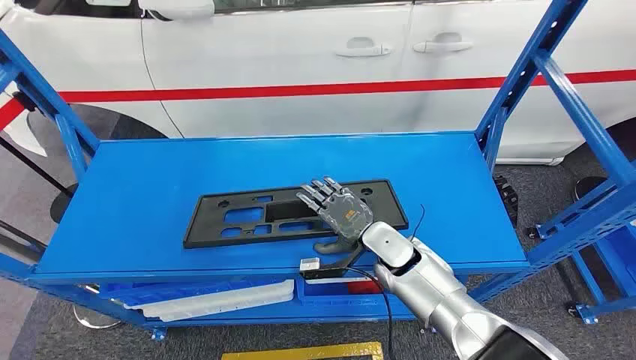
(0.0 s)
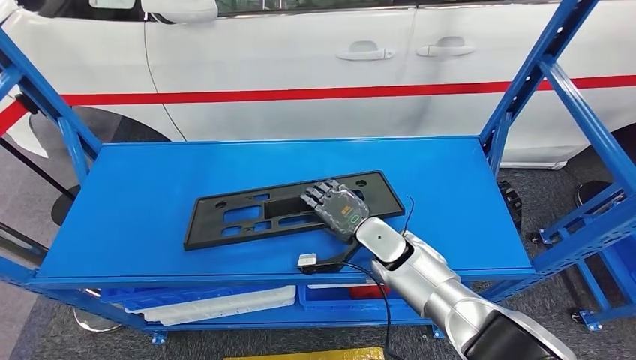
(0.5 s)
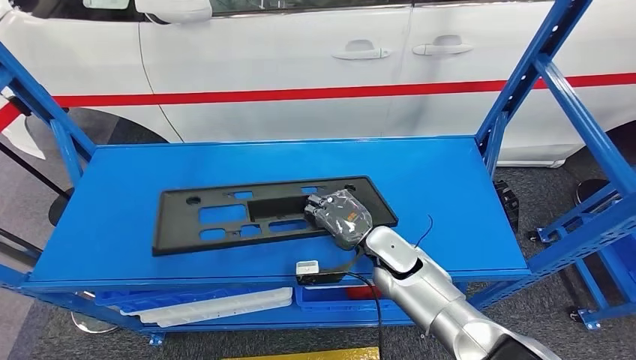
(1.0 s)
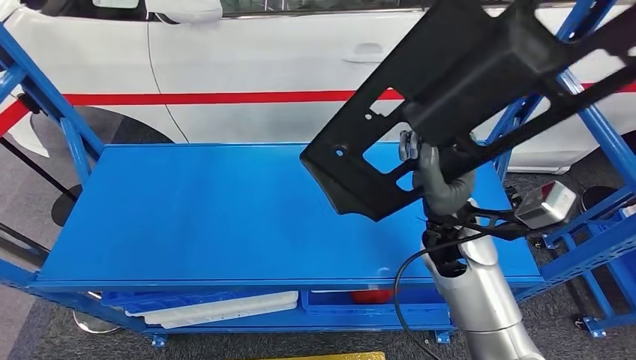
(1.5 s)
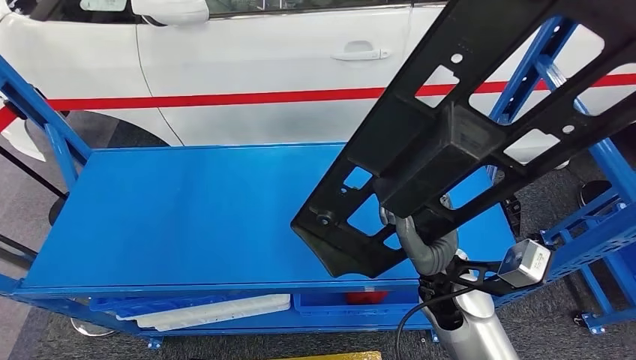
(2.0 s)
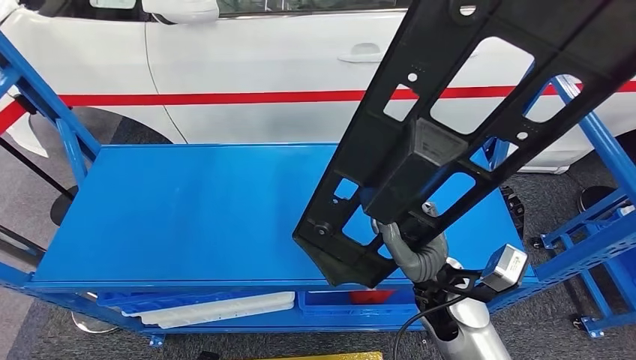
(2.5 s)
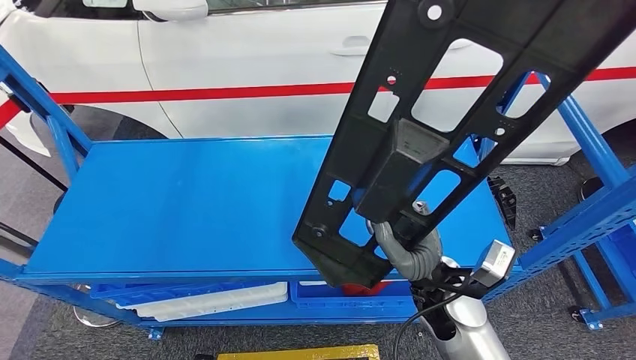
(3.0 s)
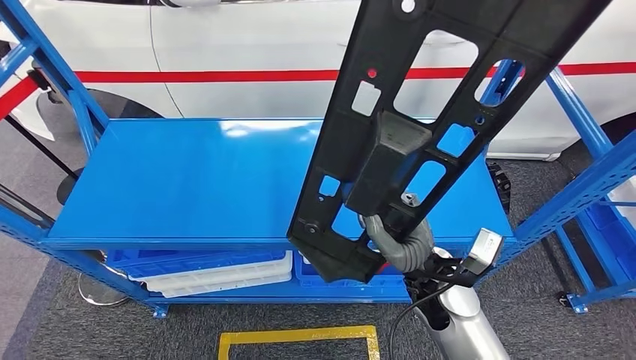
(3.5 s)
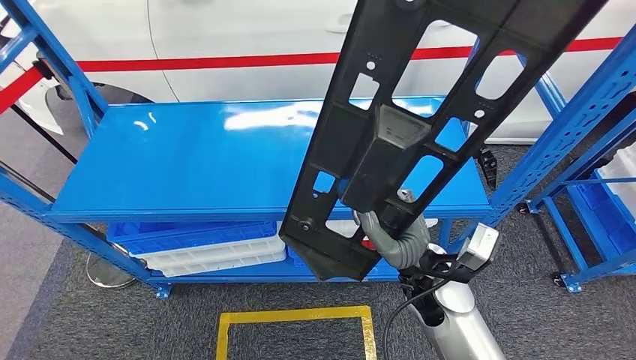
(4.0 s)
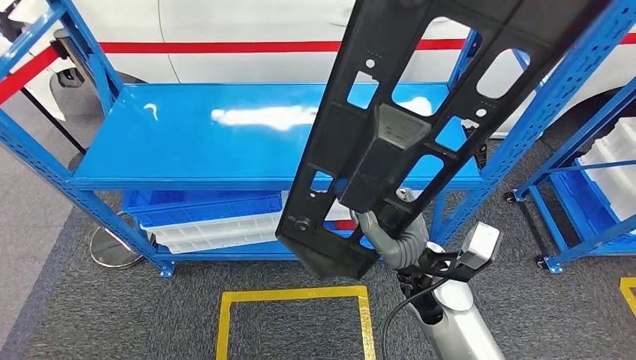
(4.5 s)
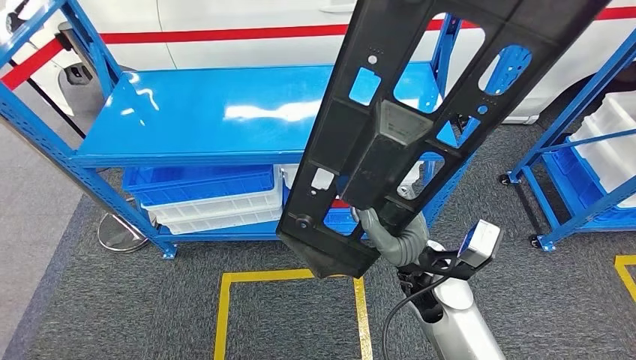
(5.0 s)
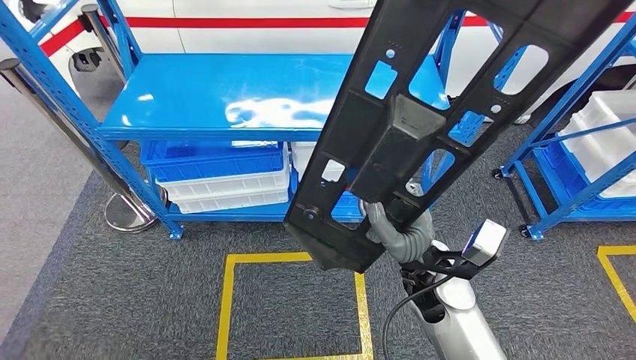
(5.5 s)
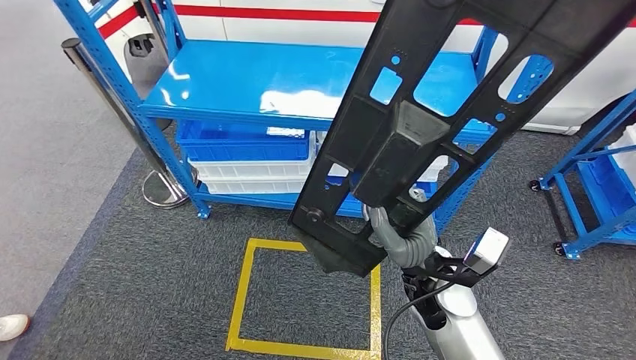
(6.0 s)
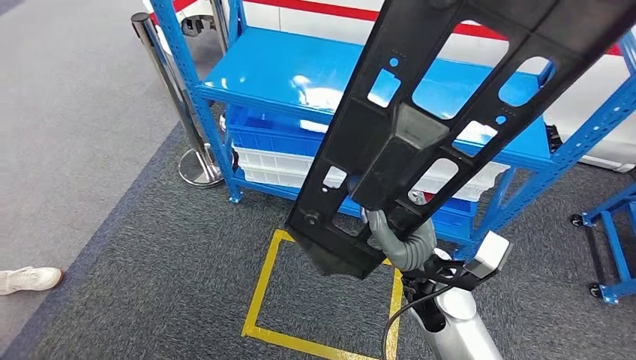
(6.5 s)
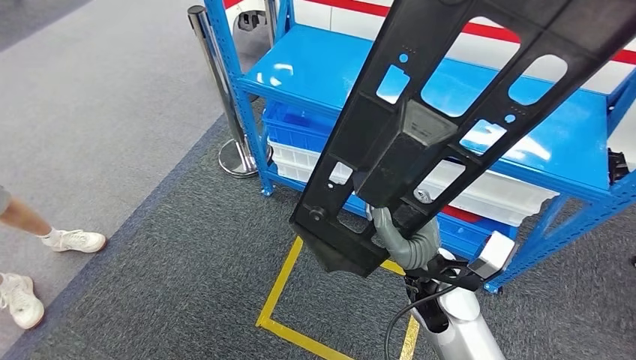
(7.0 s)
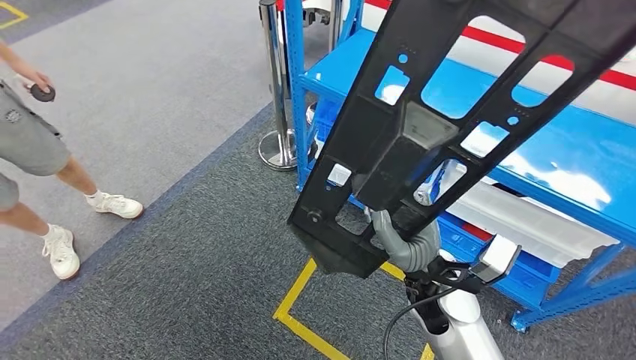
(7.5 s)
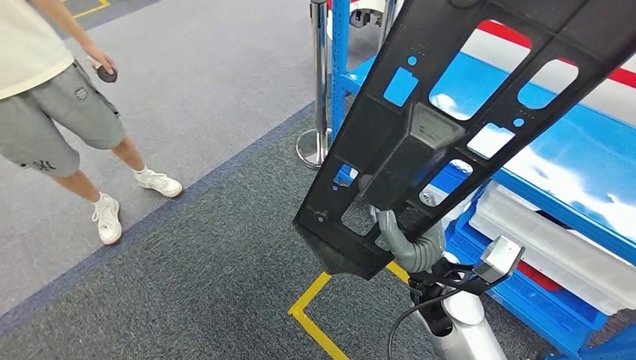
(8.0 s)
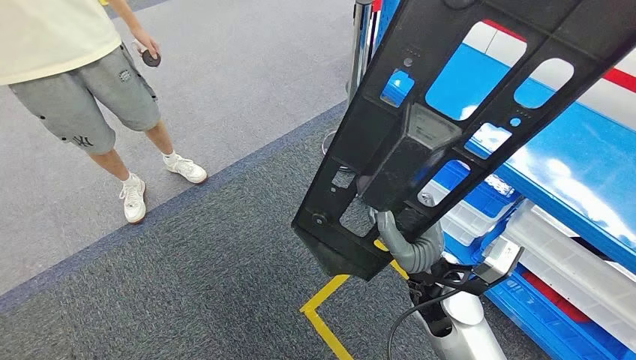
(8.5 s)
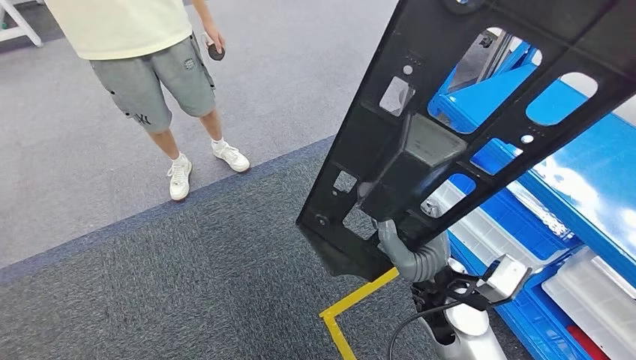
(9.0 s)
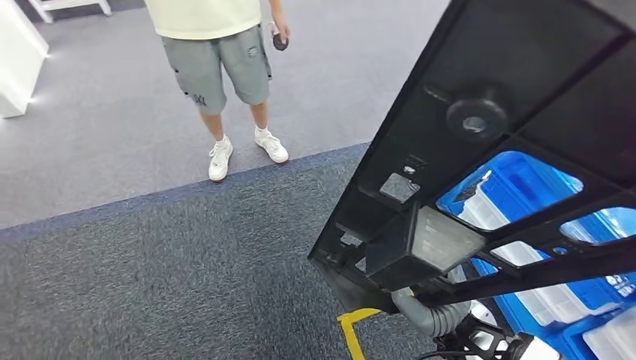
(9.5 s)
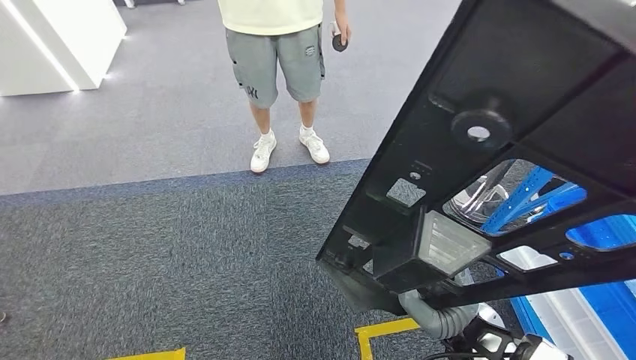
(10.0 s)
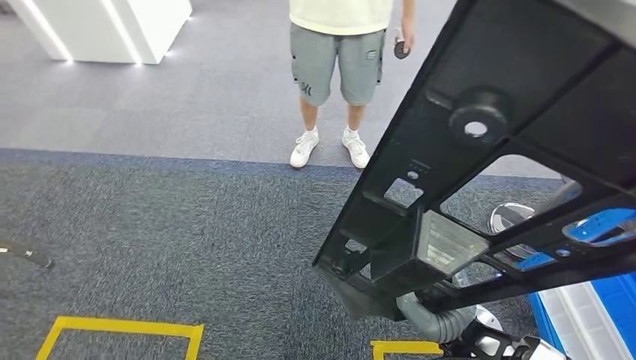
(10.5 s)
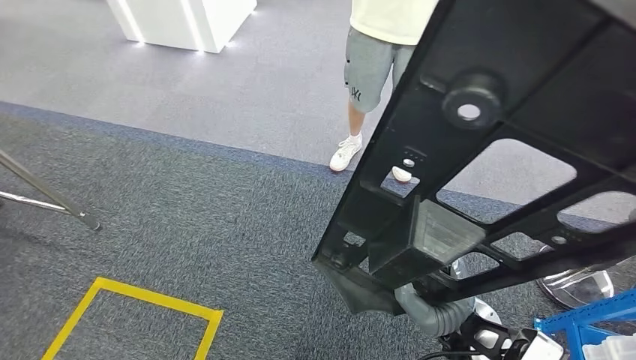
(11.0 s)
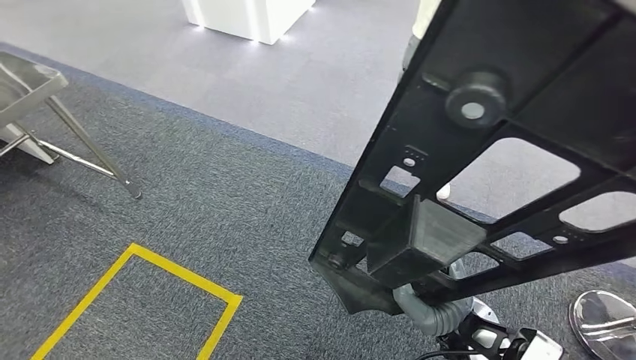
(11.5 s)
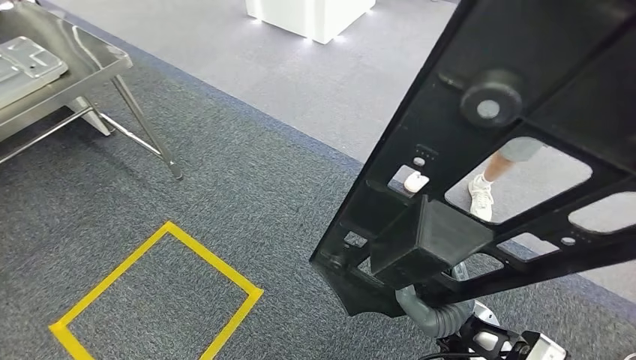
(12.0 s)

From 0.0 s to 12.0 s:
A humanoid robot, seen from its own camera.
Step, from 0.0 s to 2.0 s: Pick up the large material from the shelf.

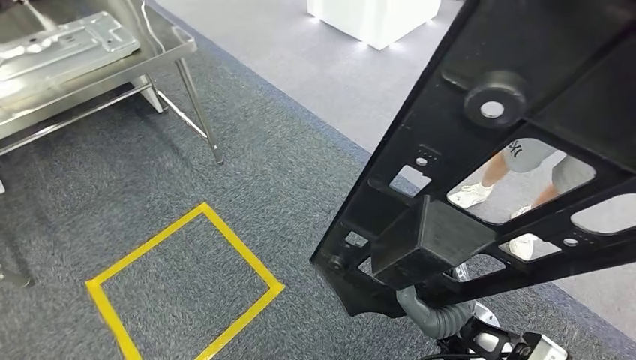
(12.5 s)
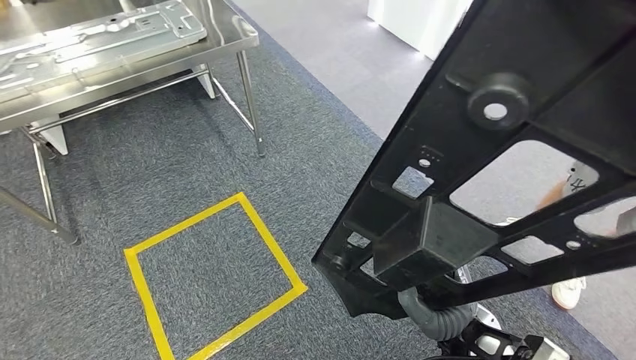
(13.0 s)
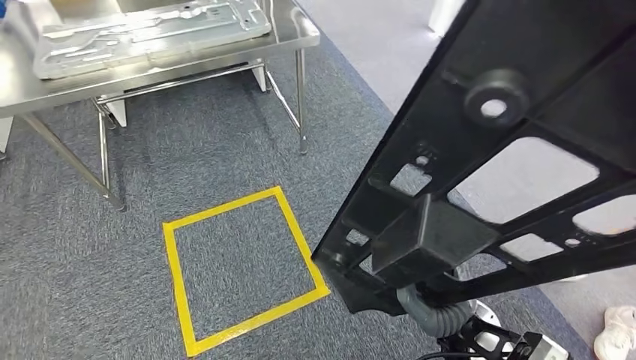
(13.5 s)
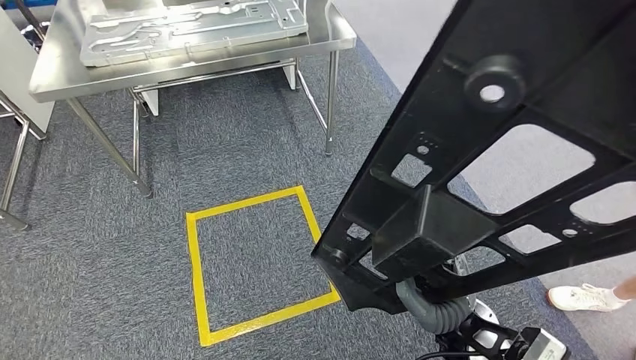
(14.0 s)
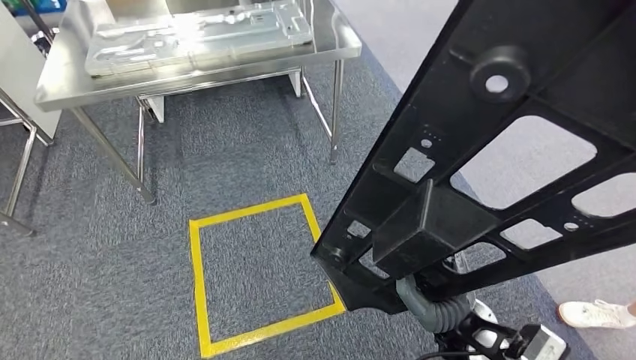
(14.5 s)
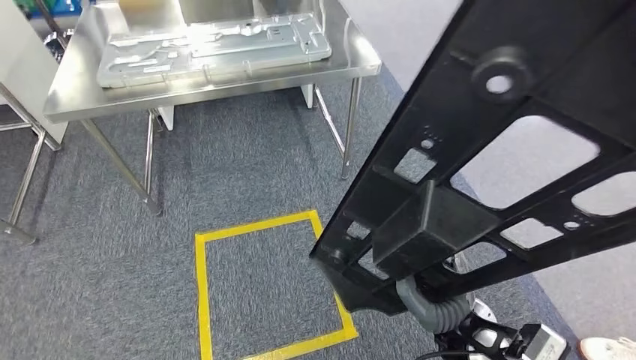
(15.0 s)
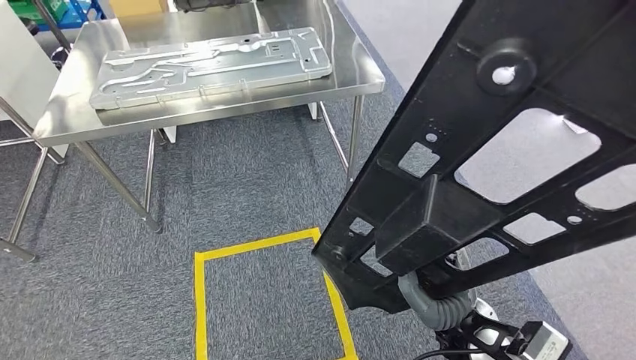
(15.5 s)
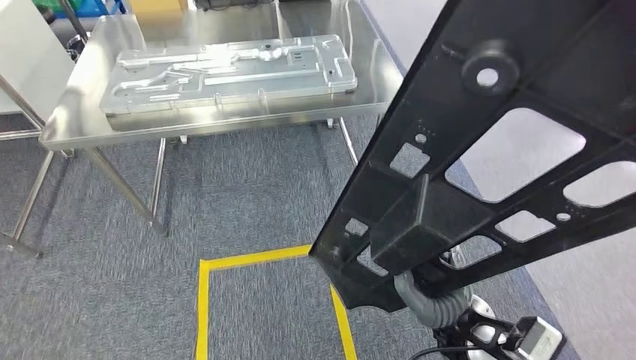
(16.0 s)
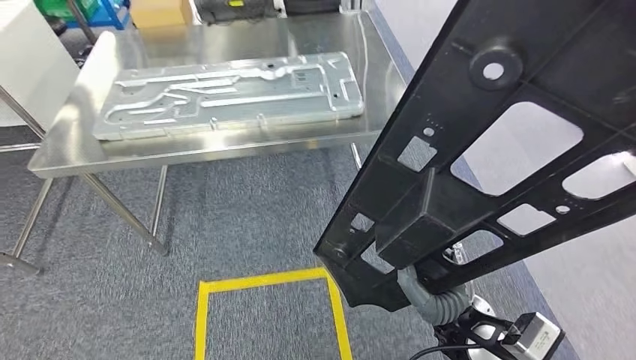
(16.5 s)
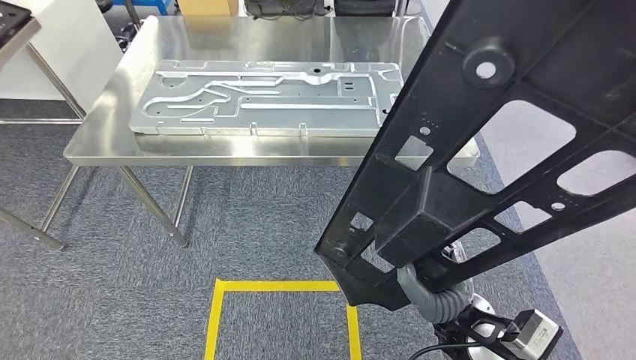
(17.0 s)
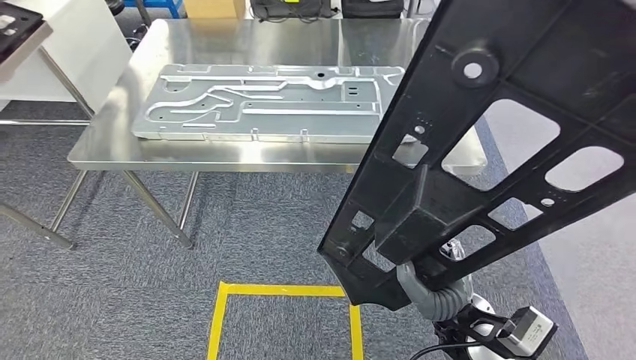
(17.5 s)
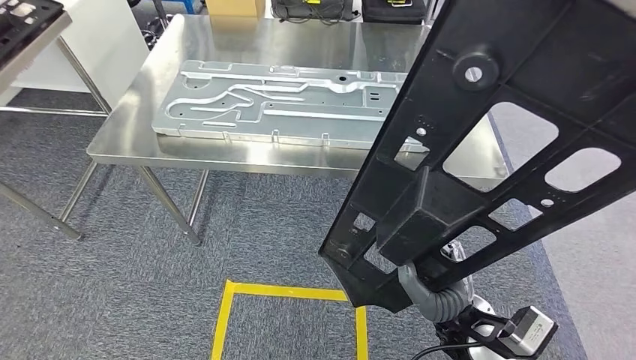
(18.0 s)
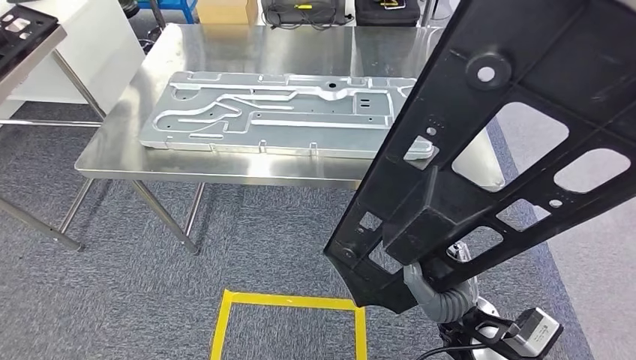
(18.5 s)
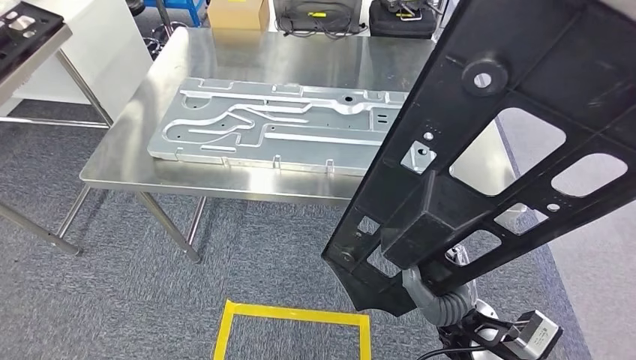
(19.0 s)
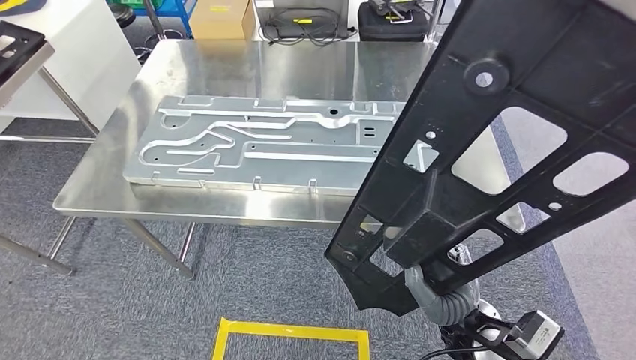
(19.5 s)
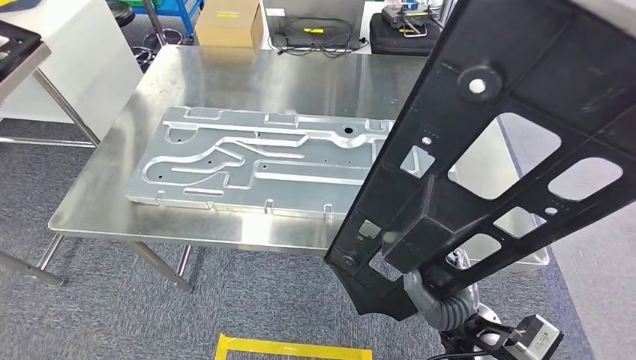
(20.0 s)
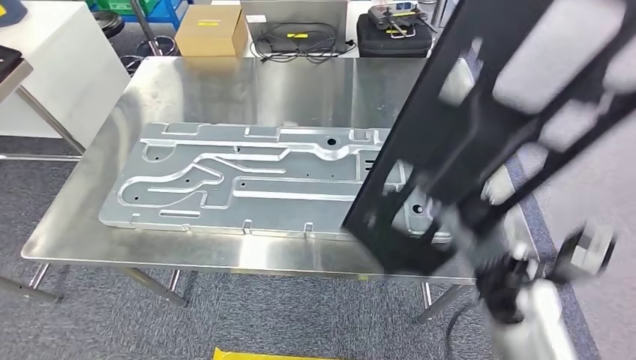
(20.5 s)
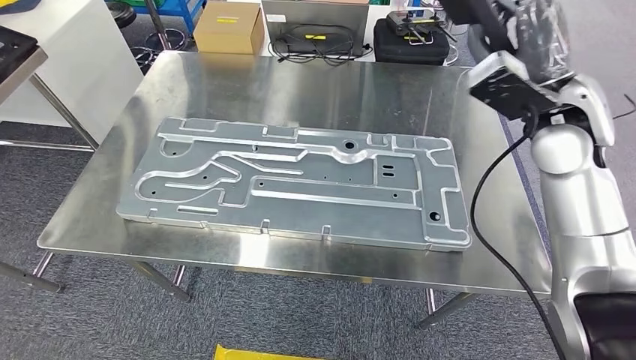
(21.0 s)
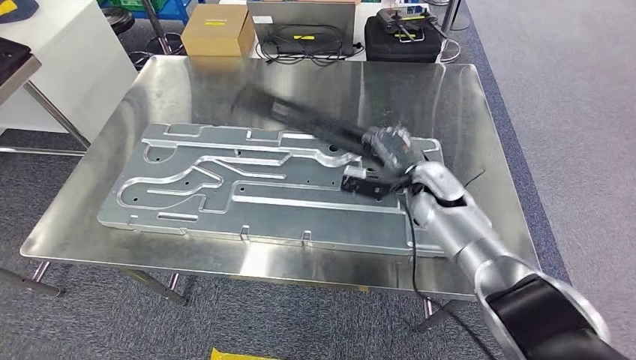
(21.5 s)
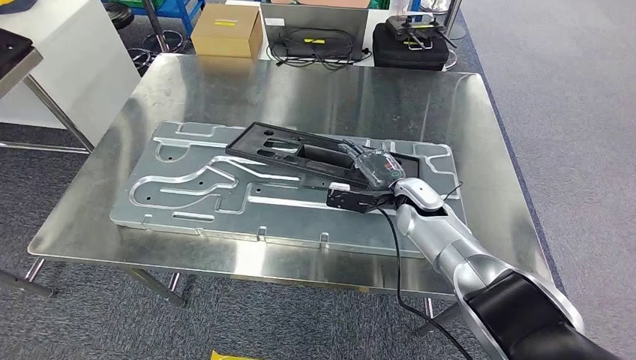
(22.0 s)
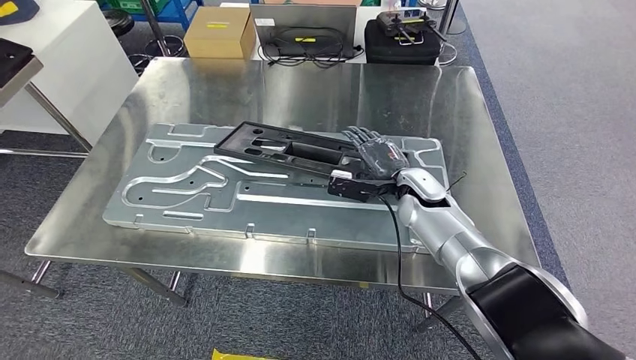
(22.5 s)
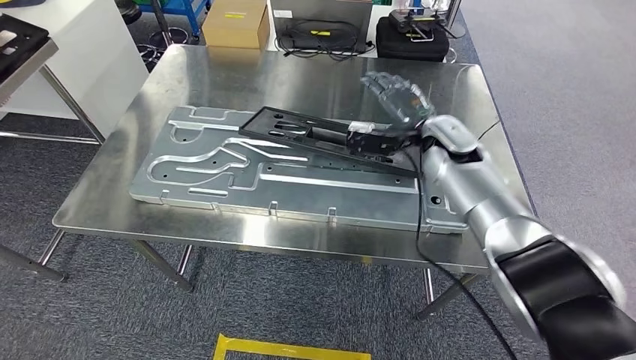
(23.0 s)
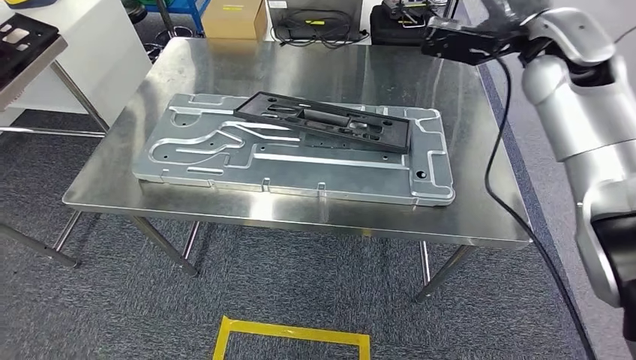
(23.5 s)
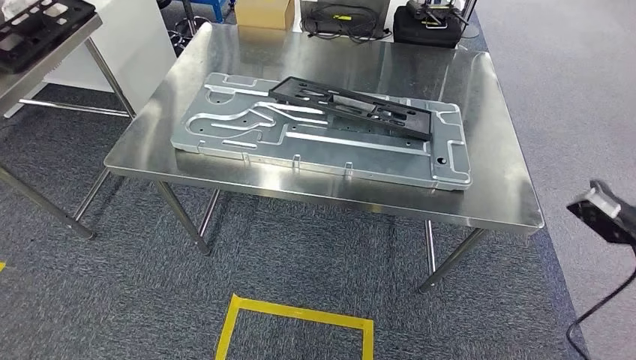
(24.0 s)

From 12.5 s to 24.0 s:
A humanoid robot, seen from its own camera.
Step, from 12.5 s to 17.5 s: Move the large material to the workbench.
Step, from 20.0 s to 24.0 s: Insert the large material into the corresponding slot on the workbench.
